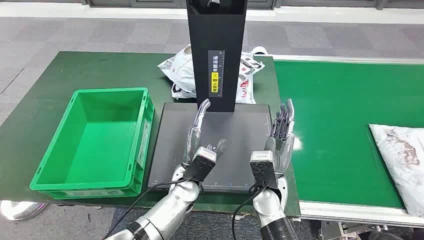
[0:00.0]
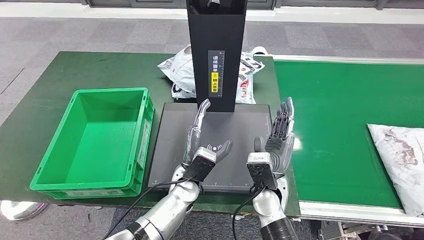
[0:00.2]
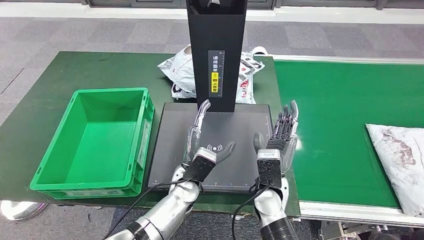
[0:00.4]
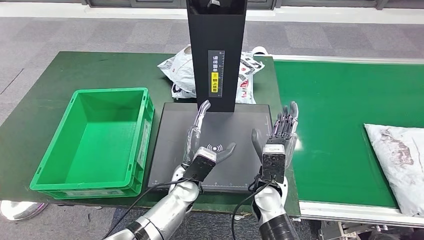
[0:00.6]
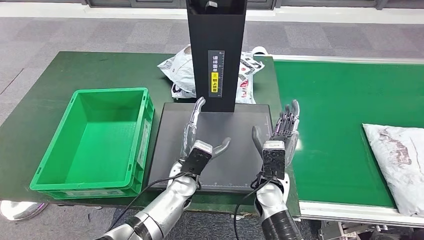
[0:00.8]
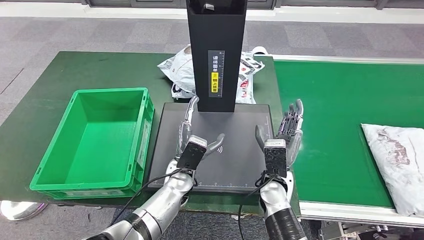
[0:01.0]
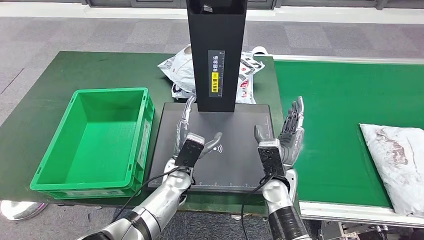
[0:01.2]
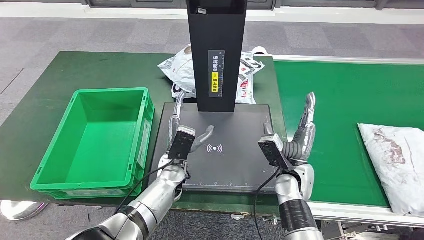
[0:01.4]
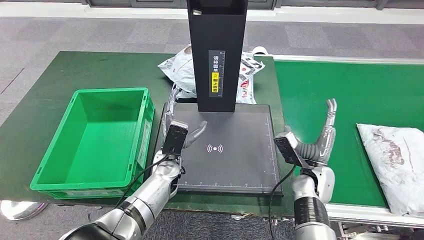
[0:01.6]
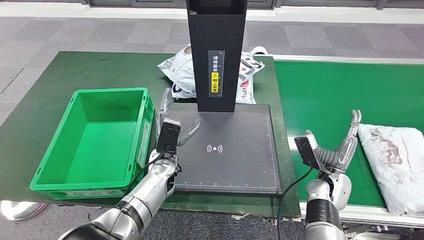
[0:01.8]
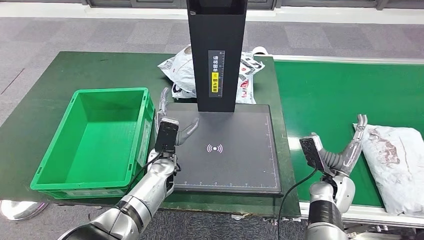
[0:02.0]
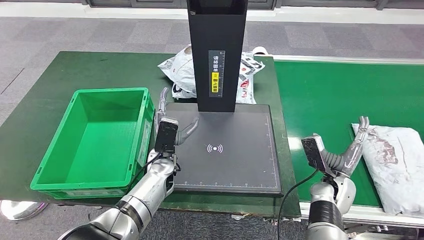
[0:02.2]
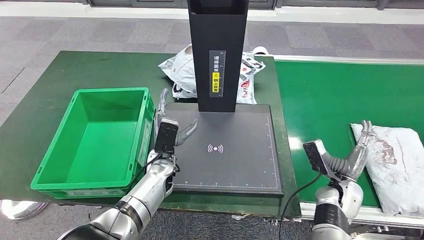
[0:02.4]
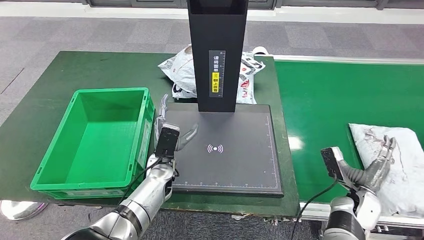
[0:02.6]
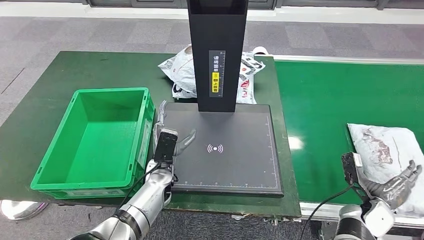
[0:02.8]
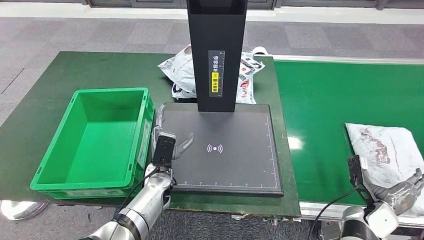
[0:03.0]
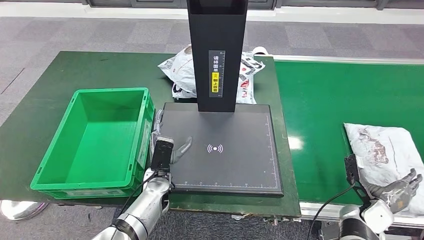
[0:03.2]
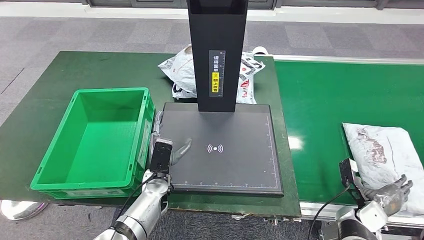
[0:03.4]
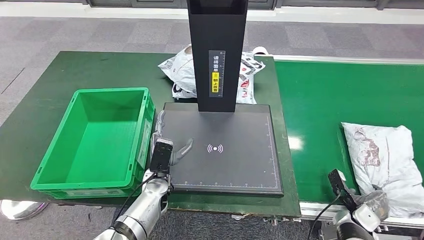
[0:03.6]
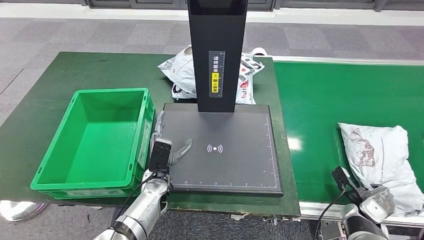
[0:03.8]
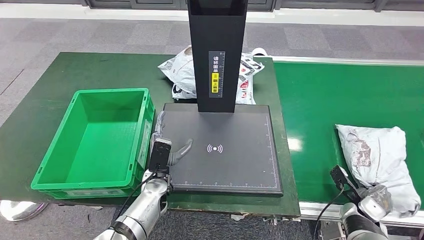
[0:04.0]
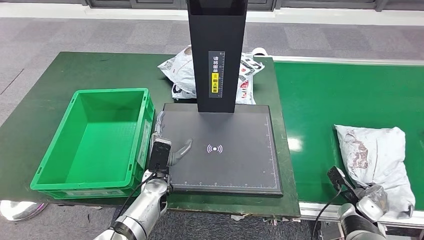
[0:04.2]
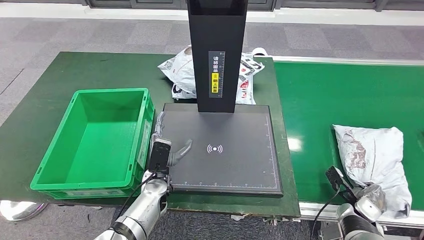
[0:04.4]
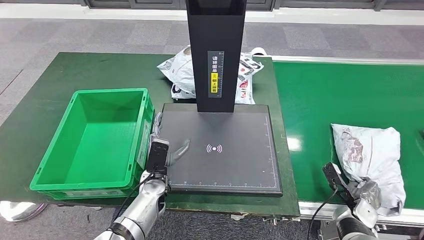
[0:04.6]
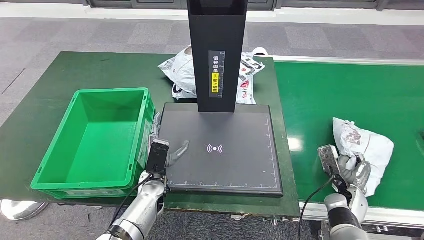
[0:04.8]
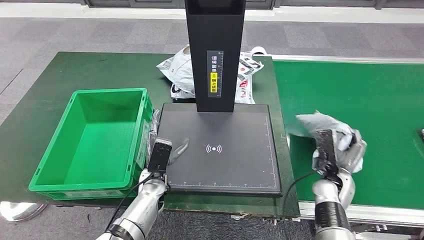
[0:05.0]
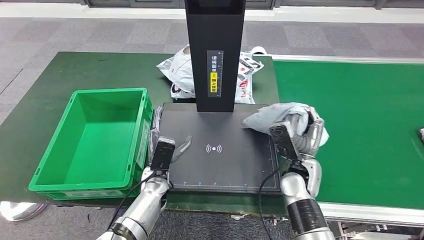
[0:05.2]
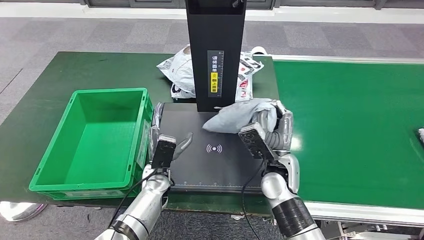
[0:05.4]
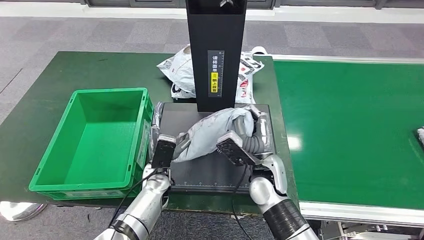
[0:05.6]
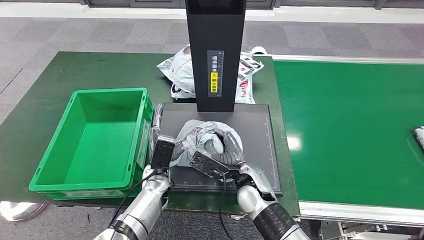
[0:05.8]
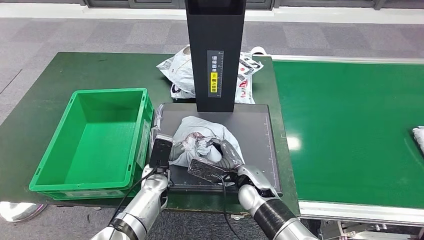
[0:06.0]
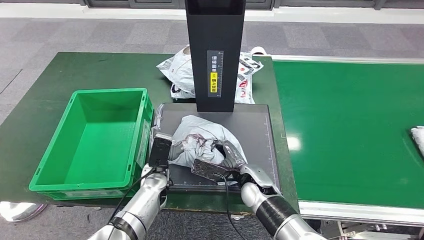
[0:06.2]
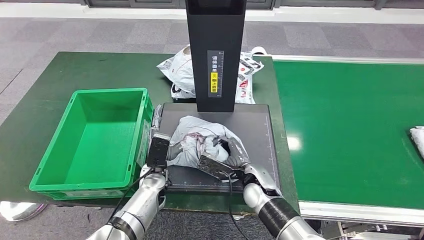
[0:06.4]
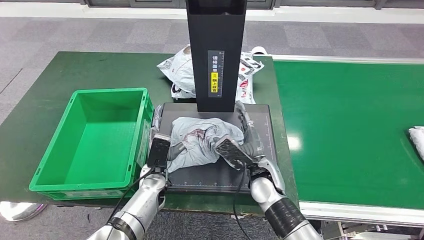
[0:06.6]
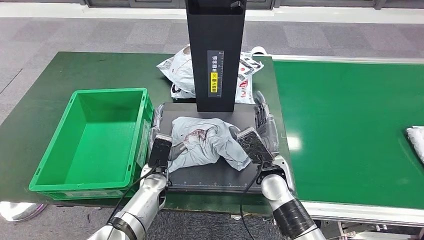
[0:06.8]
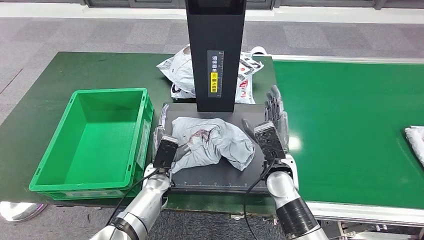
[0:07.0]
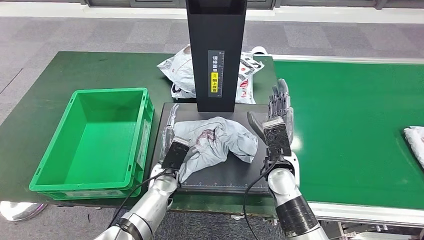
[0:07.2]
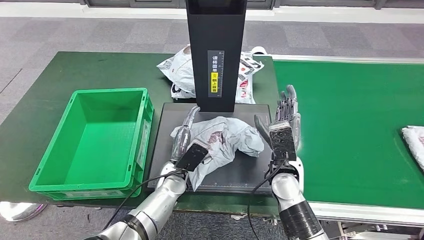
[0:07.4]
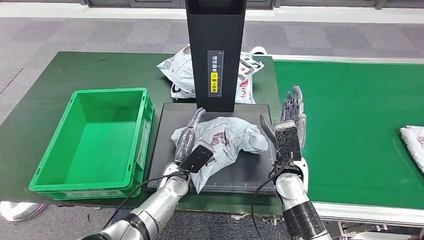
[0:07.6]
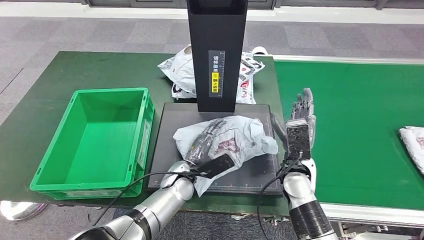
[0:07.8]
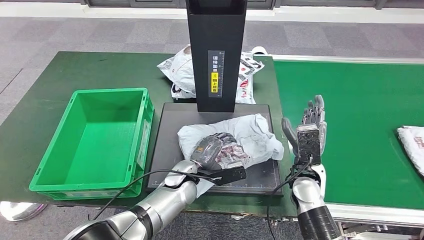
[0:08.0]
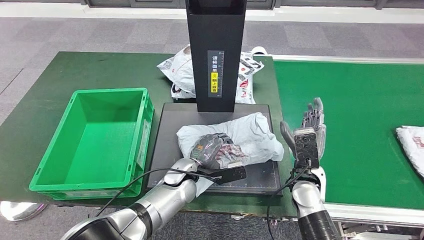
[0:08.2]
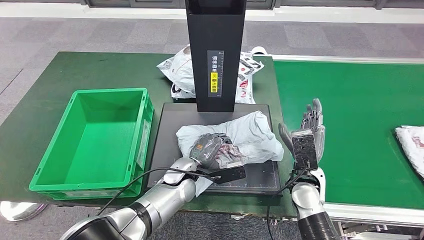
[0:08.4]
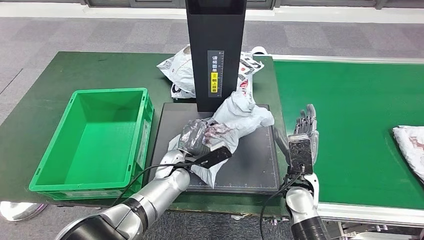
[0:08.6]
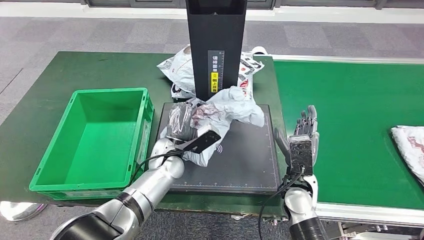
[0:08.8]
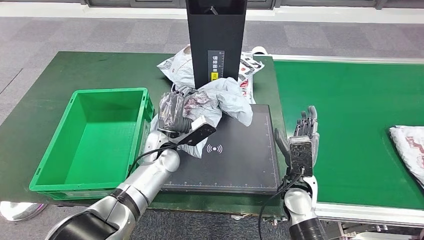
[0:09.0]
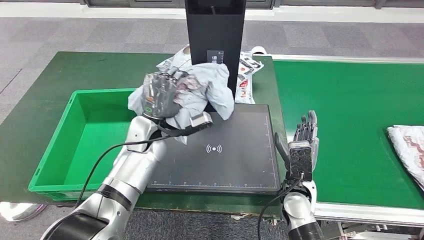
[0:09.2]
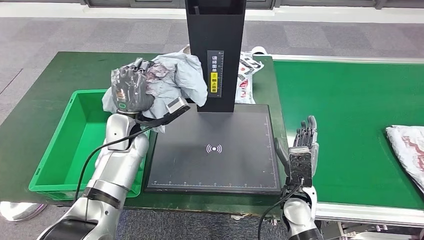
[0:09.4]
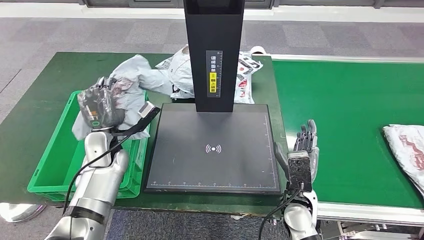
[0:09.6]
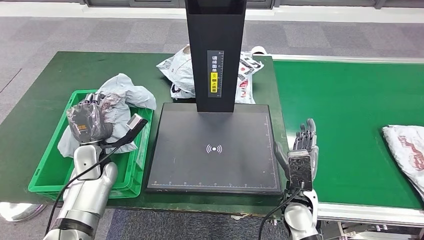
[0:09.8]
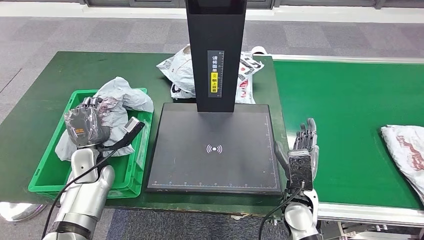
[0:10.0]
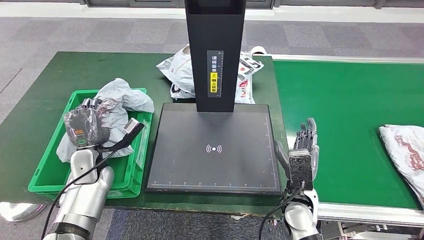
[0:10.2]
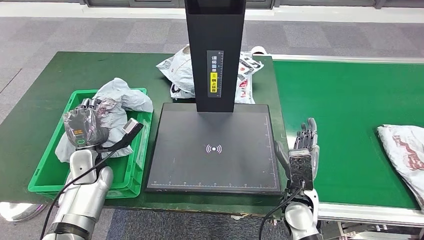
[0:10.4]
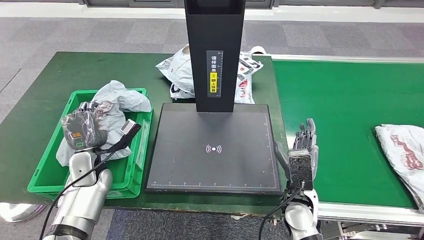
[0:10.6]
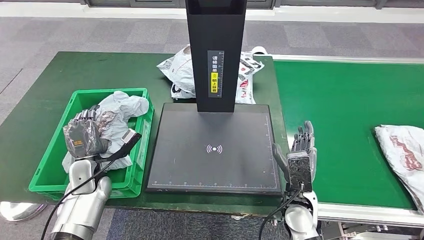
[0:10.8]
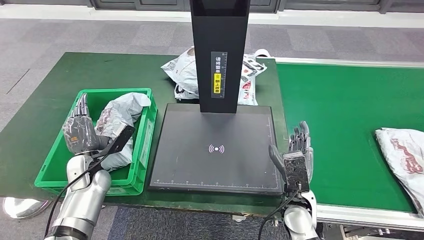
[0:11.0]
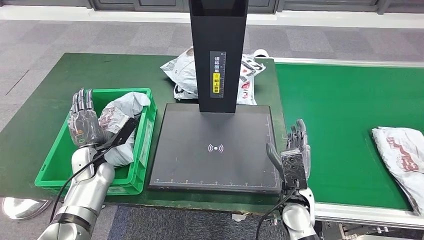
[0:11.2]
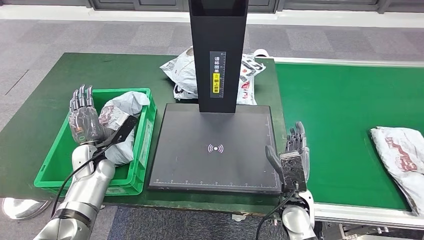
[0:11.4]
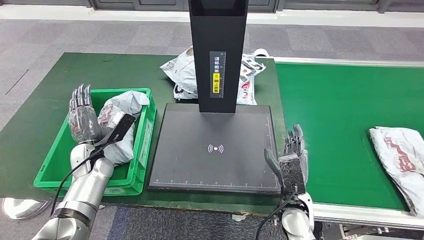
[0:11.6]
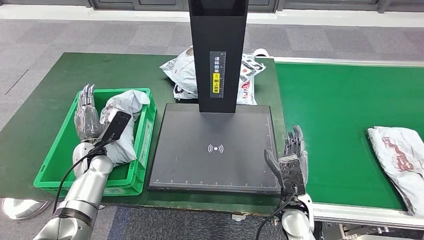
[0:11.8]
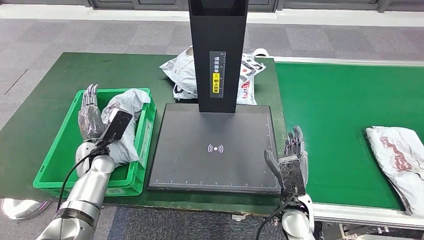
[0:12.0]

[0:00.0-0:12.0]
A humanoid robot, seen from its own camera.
Step, 0:00.0 to 0:05.0: Take the parcel off the conveyor belt.
Step, 0:05.2 to 0:07.0: Place the parcel onto the inbound machine.
Step, 0:07.2 to 0:09.0: Pick up the parcel from the inbound machine.
0:01.6 to 0:03.0: The left hand shifts by approximately 5 cm, while the right hand is displaced to the right and backward by approximately 15 cm.
0:06.0 to 0:07.6: The left hand changes place by some 5 cm. The right hand travels to the right and upward by about 10 cm.

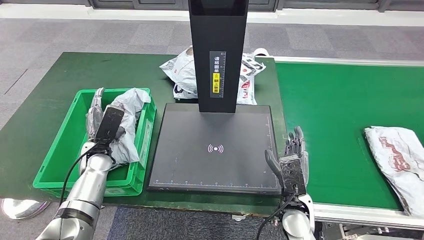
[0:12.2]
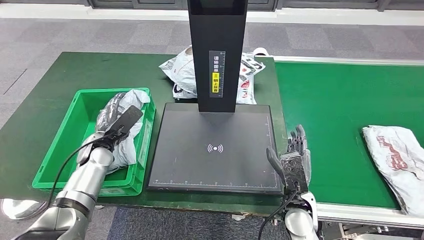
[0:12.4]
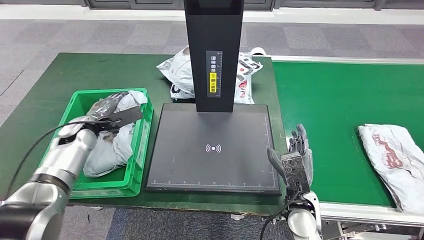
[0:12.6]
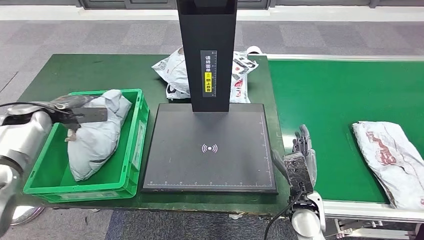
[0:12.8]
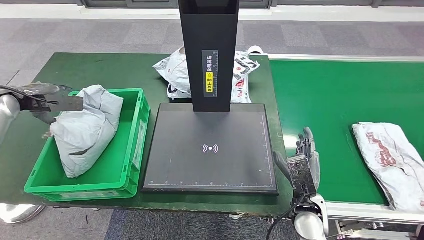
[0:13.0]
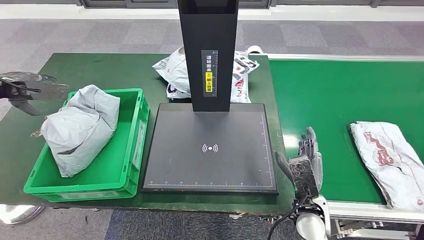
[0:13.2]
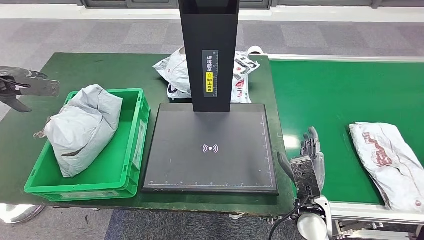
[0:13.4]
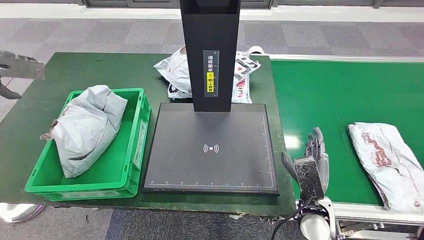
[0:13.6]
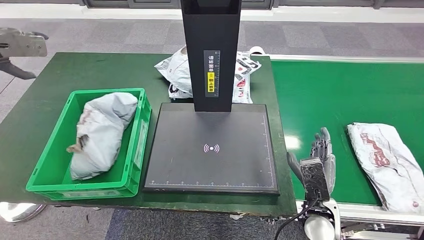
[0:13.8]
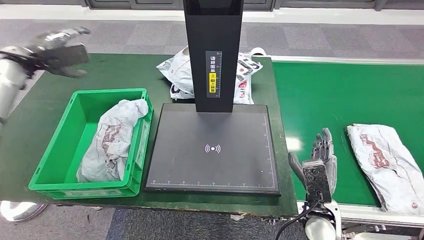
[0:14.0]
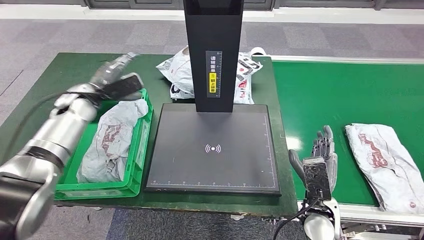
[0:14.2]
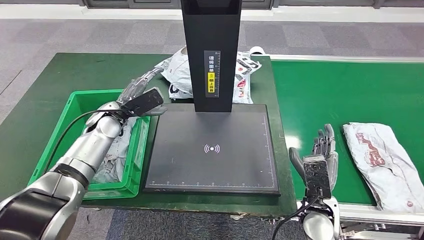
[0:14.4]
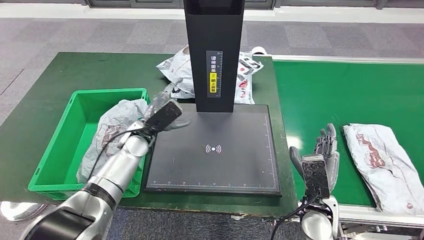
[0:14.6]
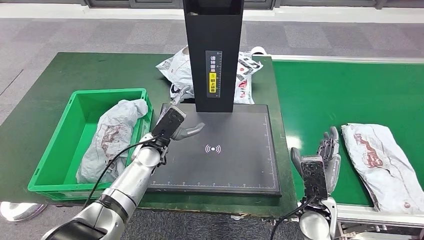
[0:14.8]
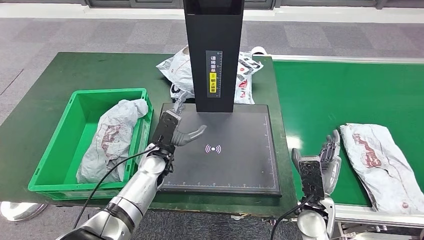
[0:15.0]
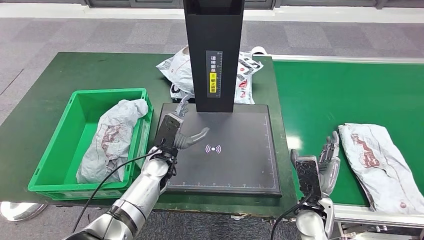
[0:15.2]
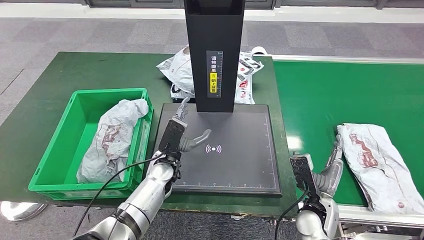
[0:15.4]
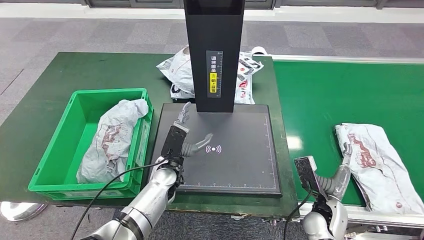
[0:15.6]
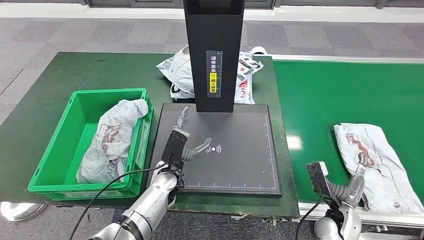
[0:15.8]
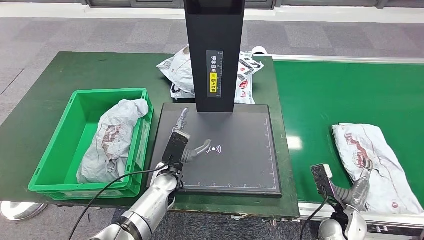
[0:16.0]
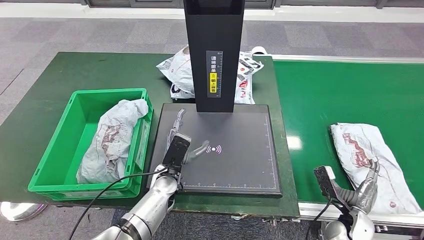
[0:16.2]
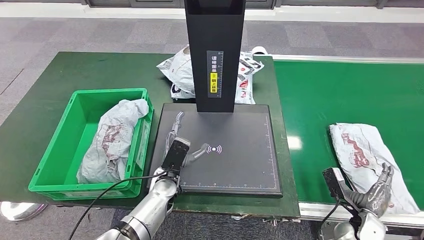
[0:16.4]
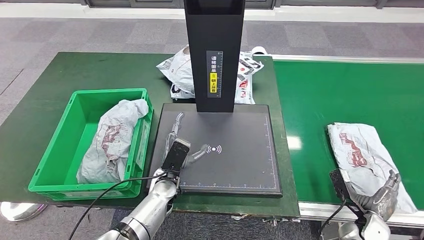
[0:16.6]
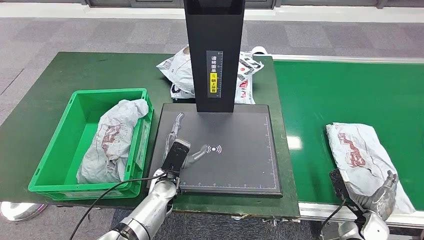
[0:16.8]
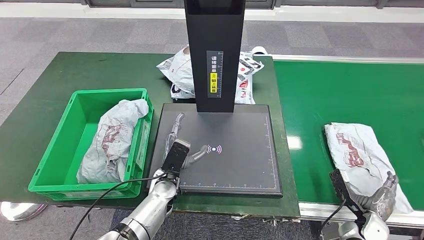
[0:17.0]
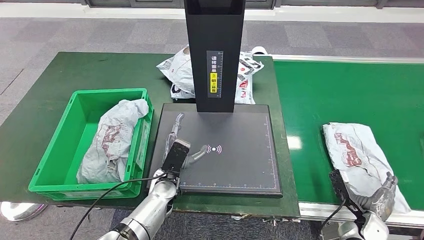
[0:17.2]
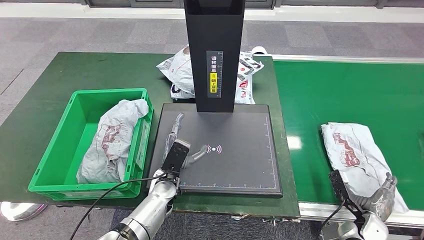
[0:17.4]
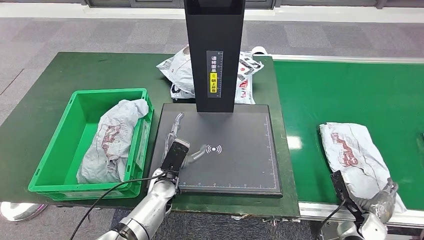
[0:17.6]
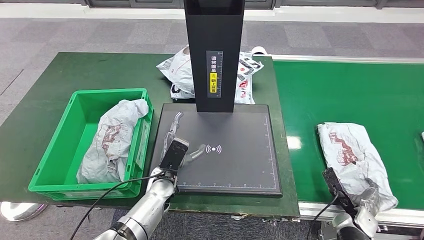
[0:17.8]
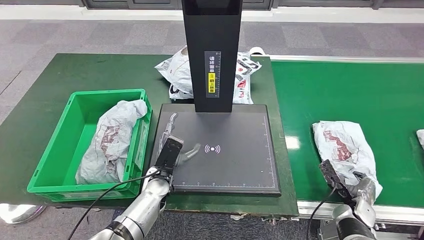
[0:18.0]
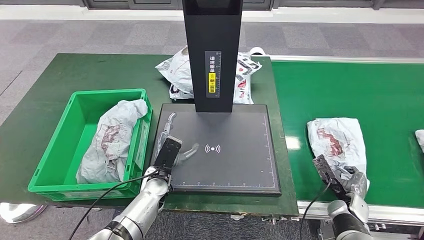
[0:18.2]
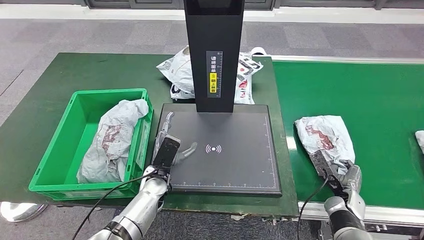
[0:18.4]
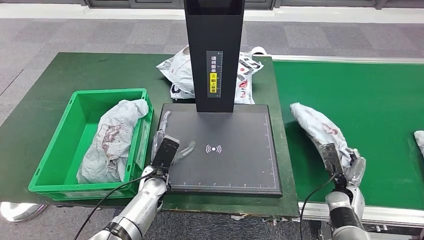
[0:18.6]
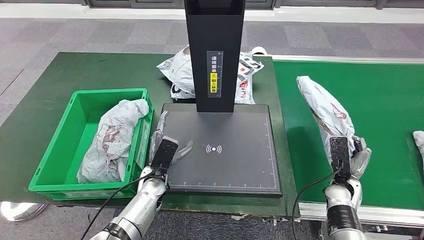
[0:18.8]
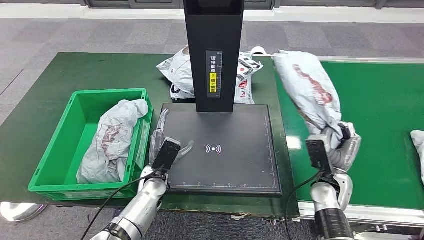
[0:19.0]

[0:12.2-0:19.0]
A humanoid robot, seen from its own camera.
Step, 0:12.2 to 0:14.8: Put the parcel inside the courier box.
Step, 0:15.0 to 0:18.8: Pick up the parcel from the conveyor belt.
0:15.0 to 0:16.2: The left hand changes place by about 5 cm. Meanwhile the right hand moves to the right and downward, approximately 15 cm.
0:16.2 to 0:17.6: The hands stay close to where they were, moving slightly.
